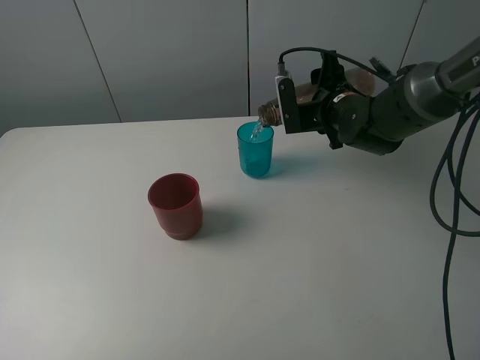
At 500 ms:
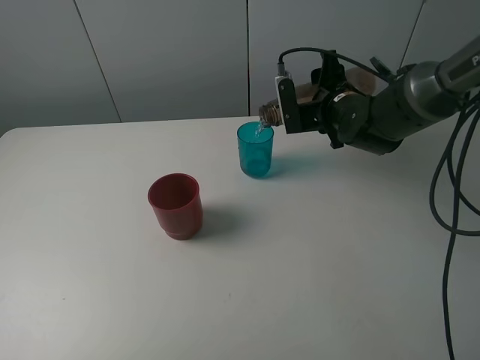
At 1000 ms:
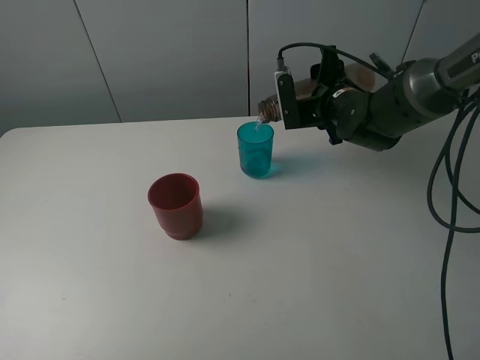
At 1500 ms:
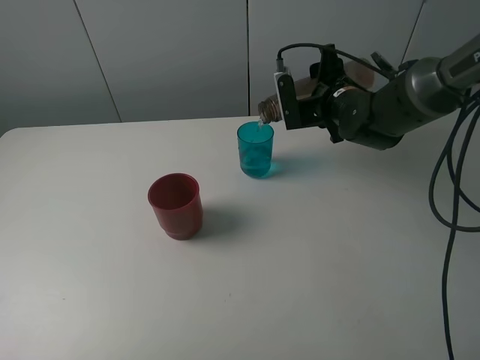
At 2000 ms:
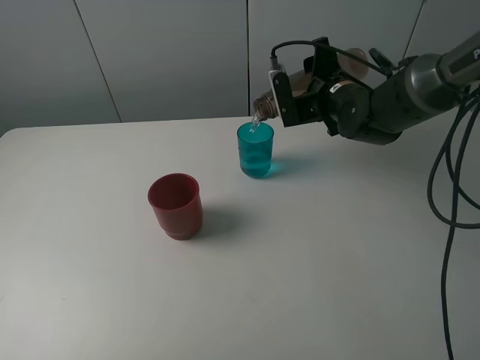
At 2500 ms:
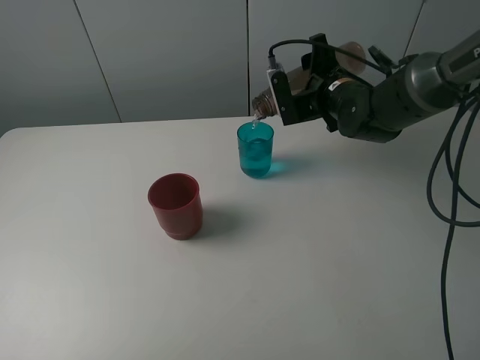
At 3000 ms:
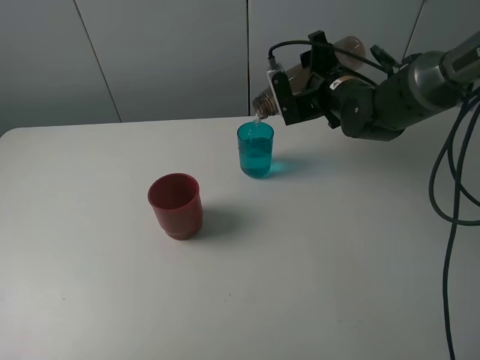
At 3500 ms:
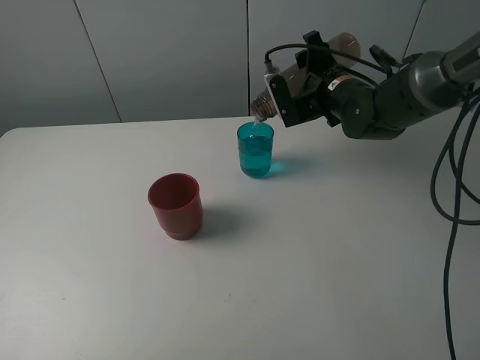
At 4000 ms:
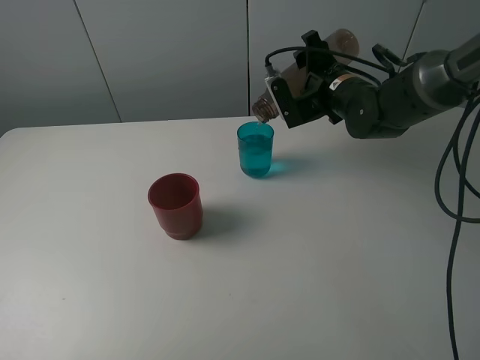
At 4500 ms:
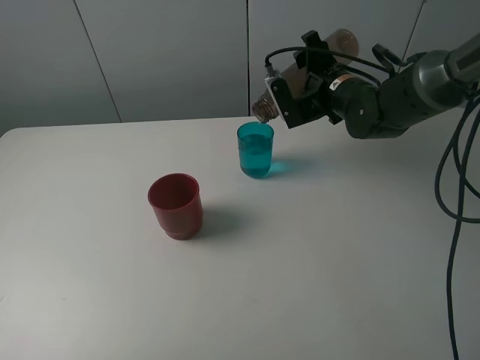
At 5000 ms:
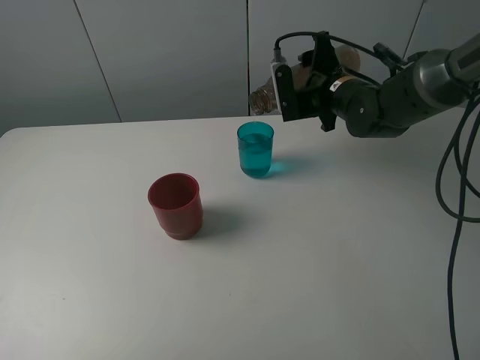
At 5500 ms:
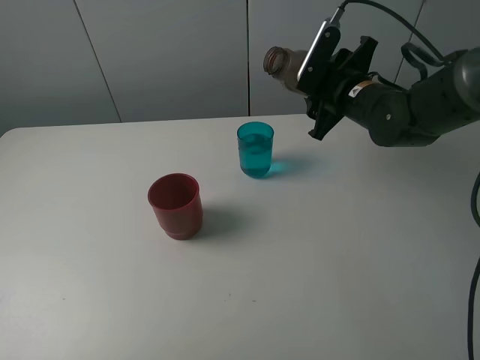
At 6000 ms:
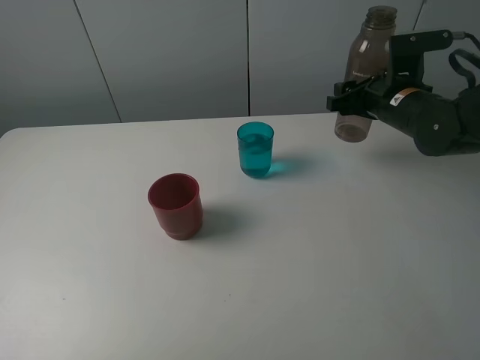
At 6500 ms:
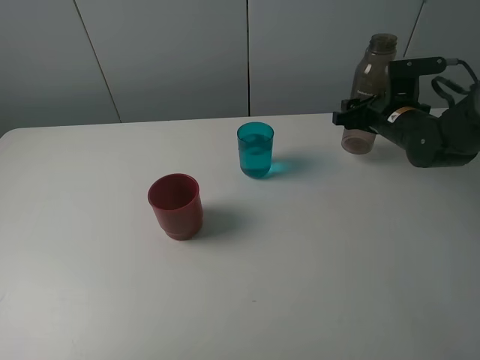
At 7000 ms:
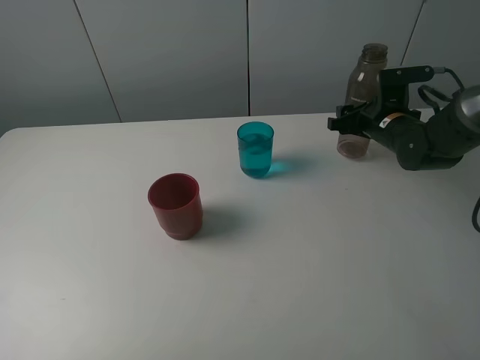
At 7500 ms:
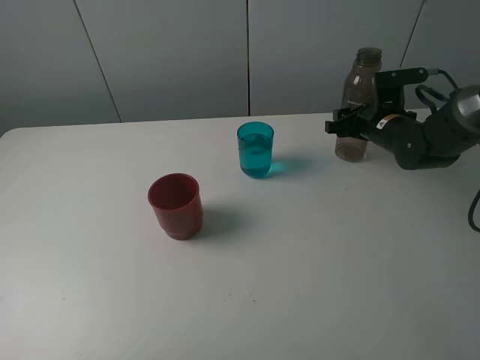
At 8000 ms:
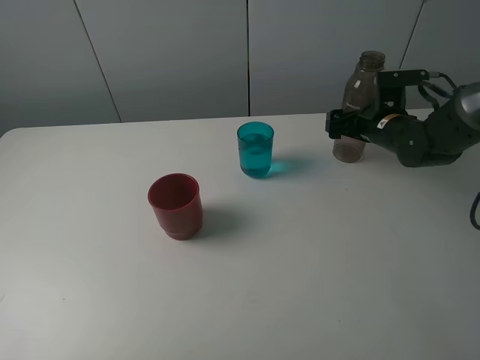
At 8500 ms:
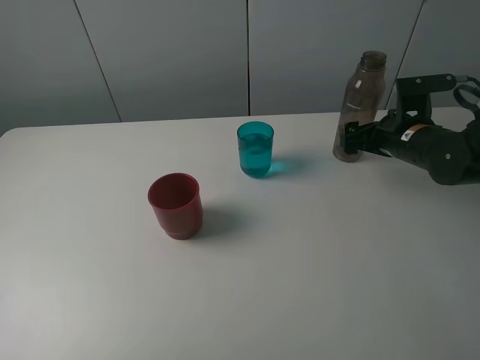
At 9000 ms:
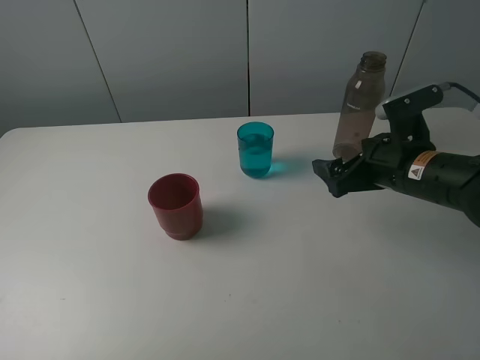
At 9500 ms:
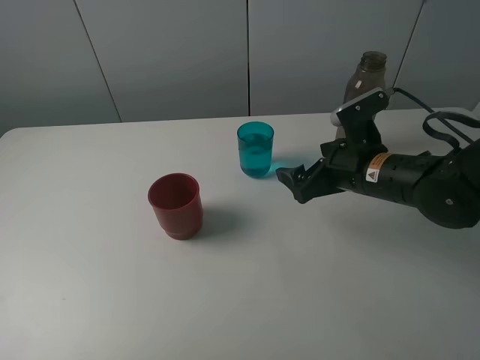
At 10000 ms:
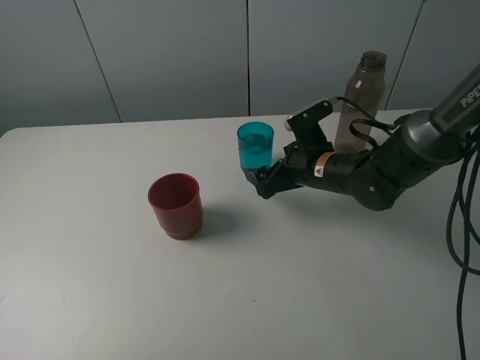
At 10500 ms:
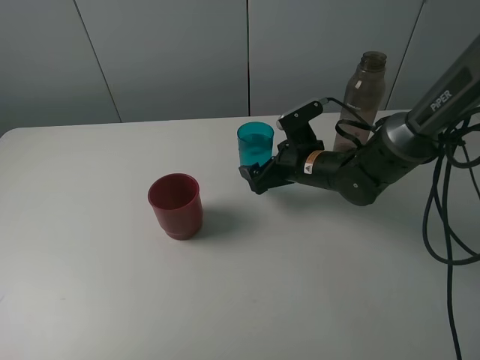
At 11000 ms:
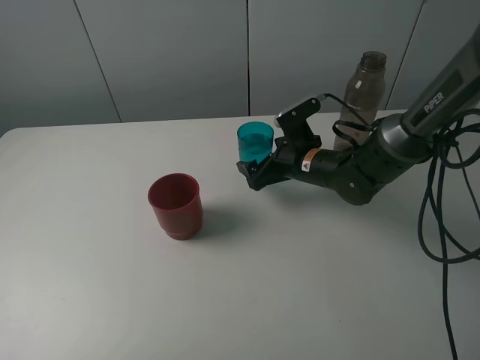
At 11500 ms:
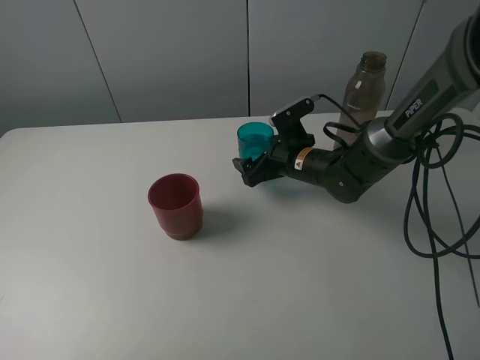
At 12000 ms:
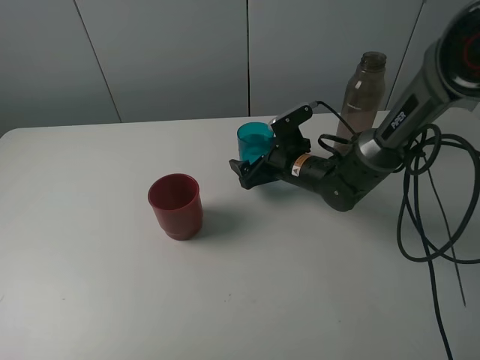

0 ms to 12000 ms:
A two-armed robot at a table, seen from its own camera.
Task of the whole recording: pick up the bottle and pour water into the cup, then pick up the cup containing water and pour it into another cup.
Step, 0 ms to 5000 ms: Pour water from brown bottle to blue cup with the right gripper.
Step, 5500 ms to 8000 ms: Place the brown bottle with the right gripper.
0 ms to 2000 ms: There are only small adjustments of the grippers.
2000 ms to 4000 ms: The grippers make only small movements.
4000 ms to 6000 ms: The right gripper is displaced to the right by roughly 10 cm.
6000 ms to 8000 ms: The right gripper heads downward, covering approximately 5 cm, and opens up.
8000 ms to 10000 ms: The right gripper moves to the left and backward, about 15 cm.
10000 ms to 12000 ms: The right gripper shifts by roughly 5 cm.

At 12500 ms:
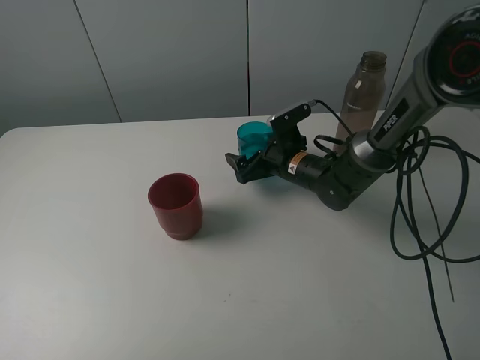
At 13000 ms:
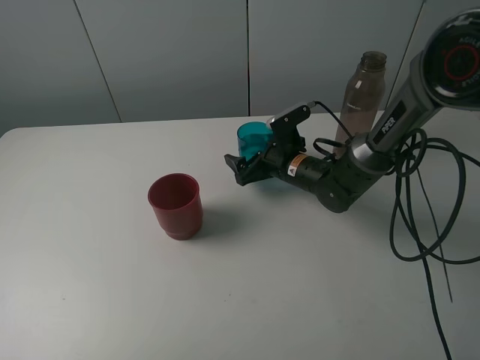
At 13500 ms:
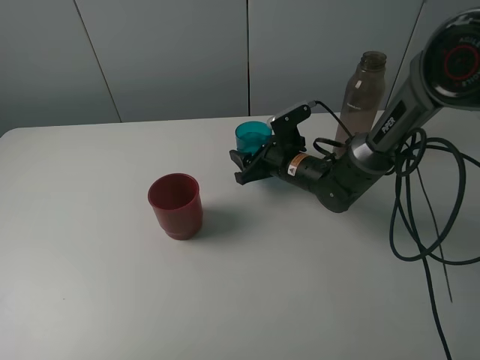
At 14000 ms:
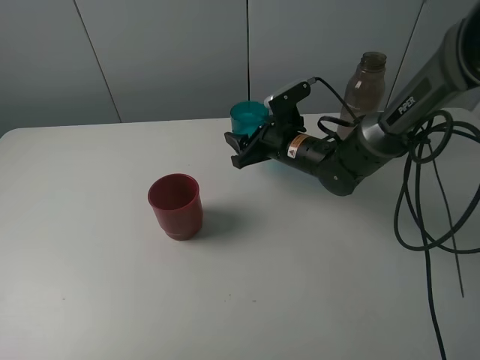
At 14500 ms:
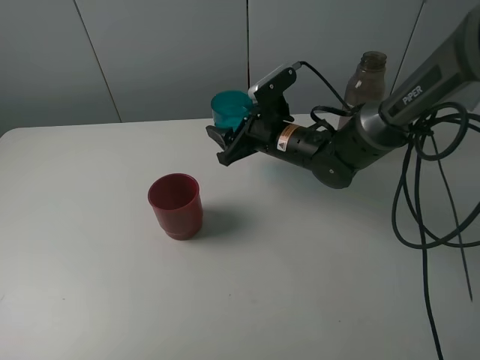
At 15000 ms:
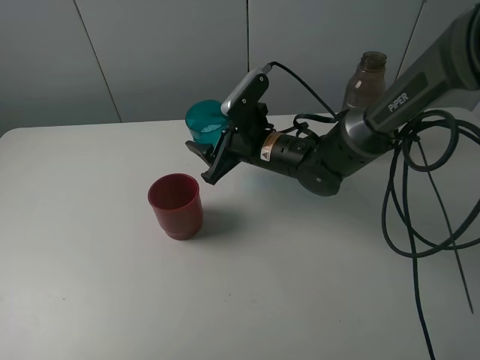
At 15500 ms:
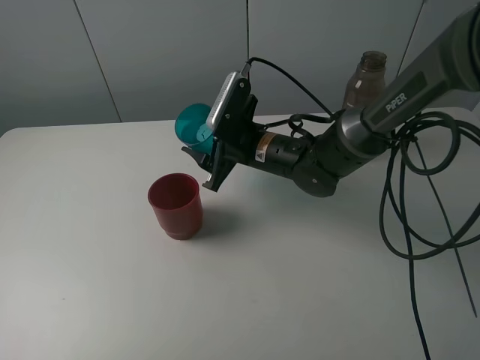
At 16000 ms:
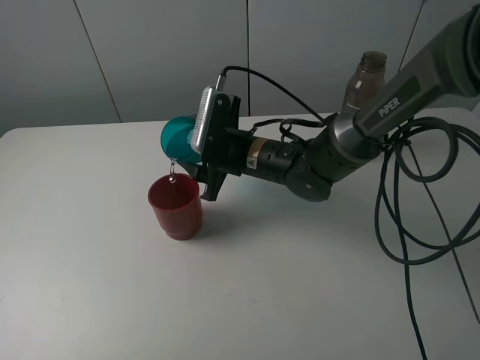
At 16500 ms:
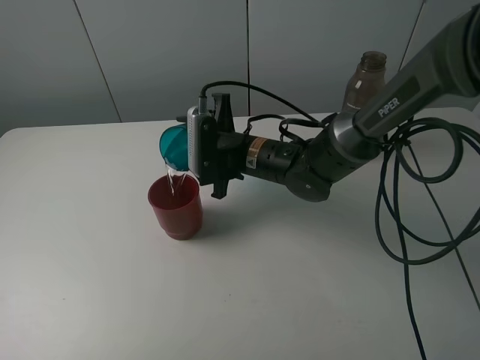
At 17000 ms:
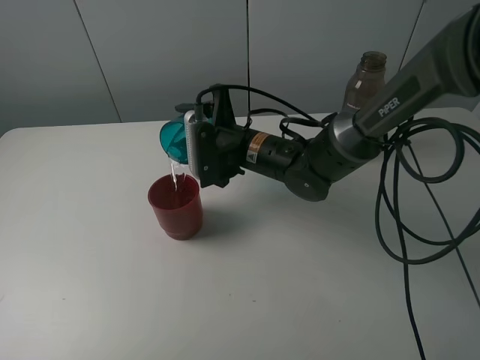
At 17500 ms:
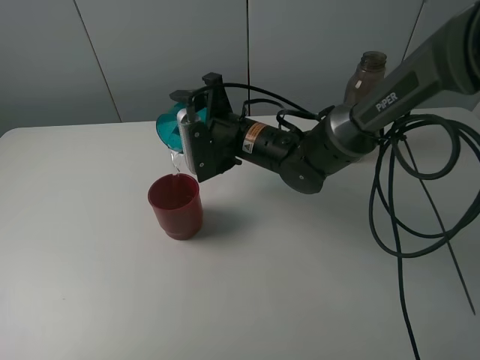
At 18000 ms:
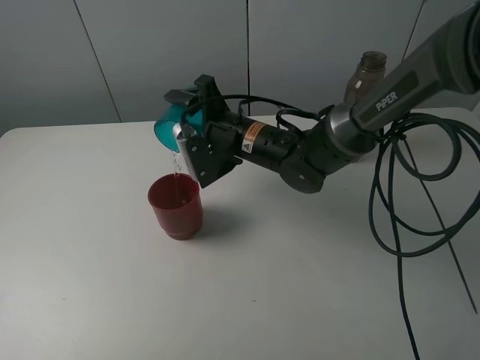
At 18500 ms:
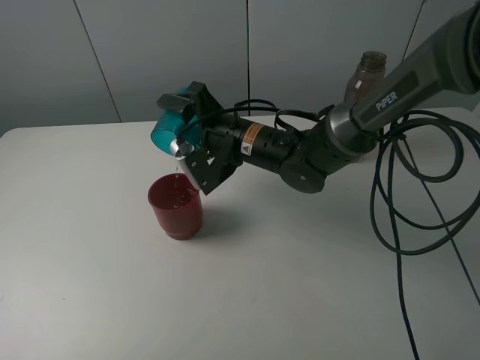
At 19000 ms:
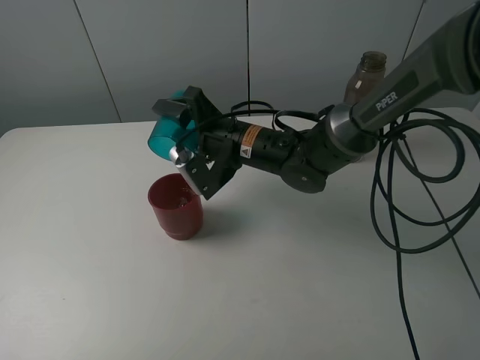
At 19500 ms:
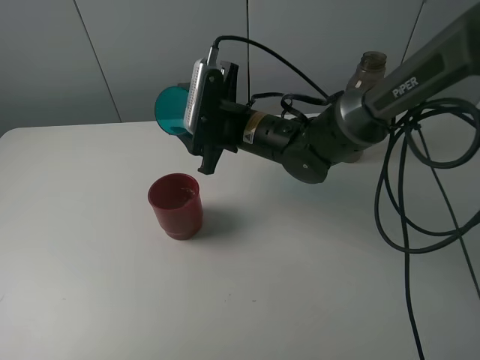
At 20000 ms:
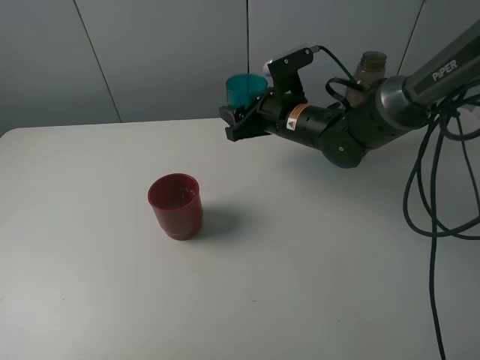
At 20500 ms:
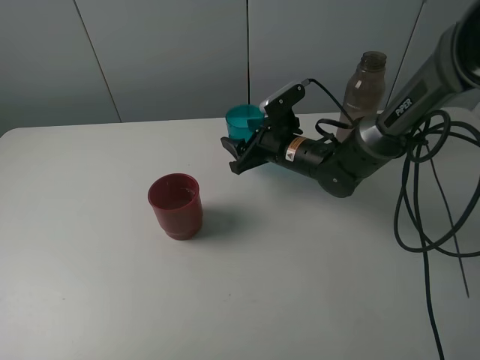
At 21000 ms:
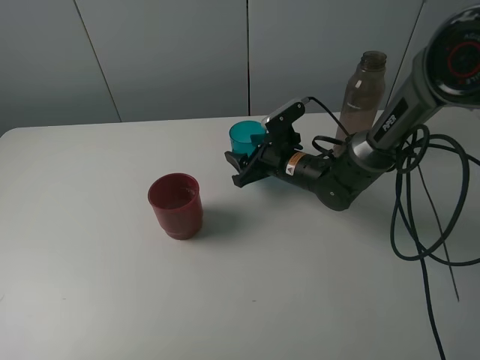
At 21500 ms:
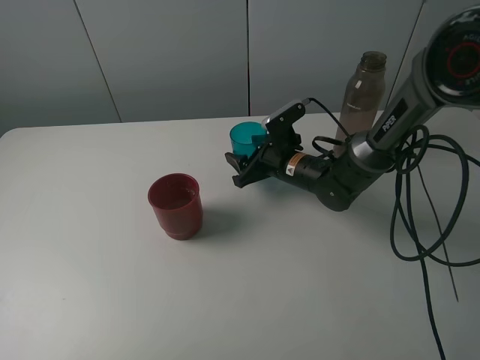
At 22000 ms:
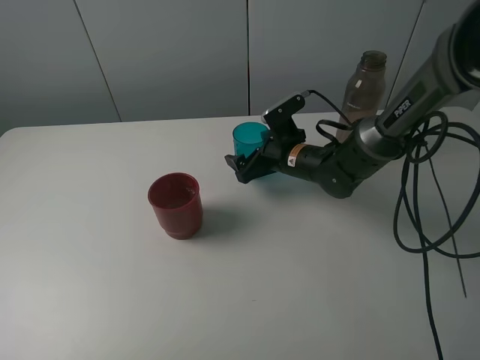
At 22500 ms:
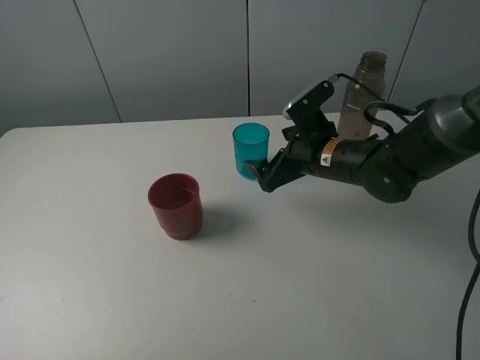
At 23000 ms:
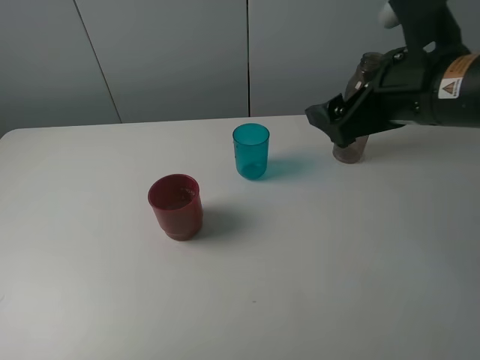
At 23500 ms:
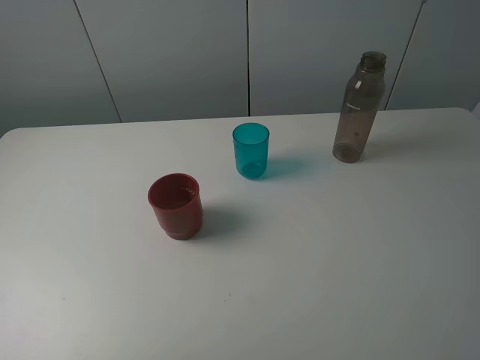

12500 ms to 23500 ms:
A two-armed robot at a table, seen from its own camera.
Task of the whole recording: pick up the bottle and pour water into the cup, then pick up the cup containing water and pour it into another cup.
Step, 13500 ms to 19000 ms: Pour water from blue cup to red cup with the right gripper.
Step, 19500 ms to 21500 ms: Place the blue cup with the right gripper.
12500 ms to 14500 ms: The right gripper travels upward by approximately 5 cm, and closes up.
14500 ms to 16000 ms: The right gripper shifts by some 5 cm.
18000 ms to 20000 ms: The right gripper travels to the right by some 5 cm.
20000 ms to 21500 ms: The right gripper goes some 10 cm downward, and opens.
21500 ms to 23500 ms: The right gripper travels backward, upward and to the right by roughly 40 cm, and opens.

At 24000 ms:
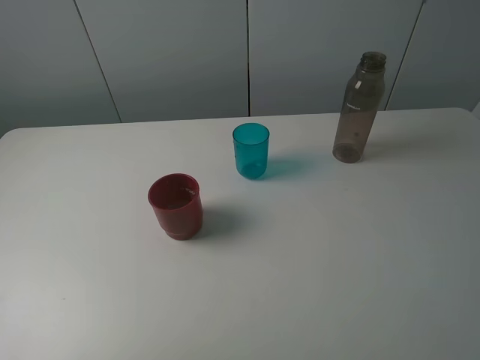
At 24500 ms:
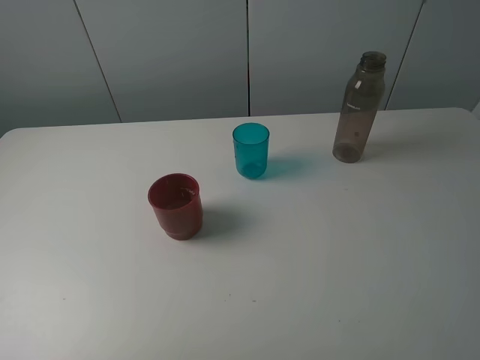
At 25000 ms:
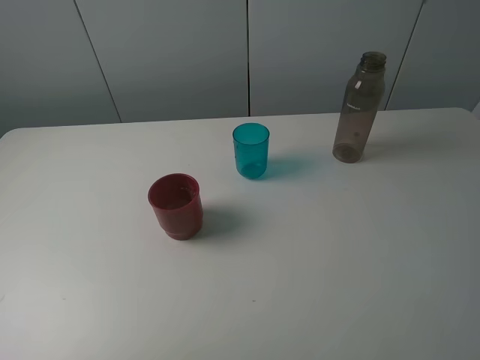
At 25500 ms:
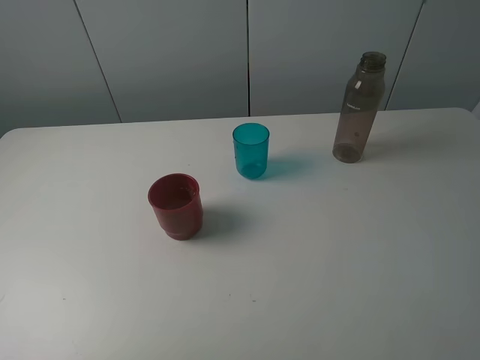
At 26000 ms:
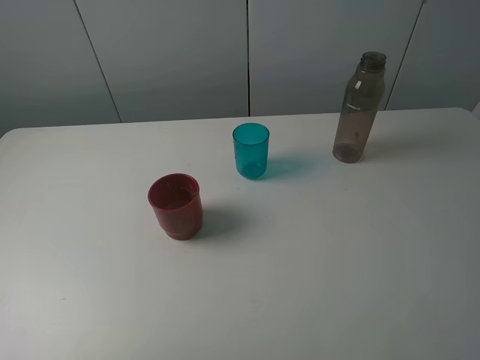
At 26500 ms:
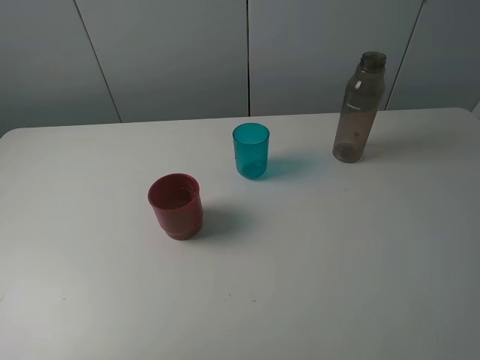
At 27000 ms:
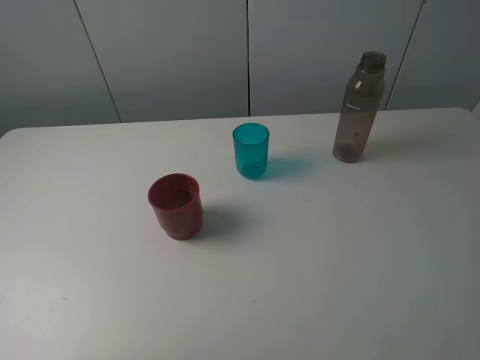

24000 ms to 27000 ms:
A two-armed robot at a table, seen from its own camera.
Task of the whole recording: pick up the bottle and pour water into the cup, then pick up the cup containing water and pour it into another cup.
25500 ms to 27000 ms: The two grippers keep their place.
